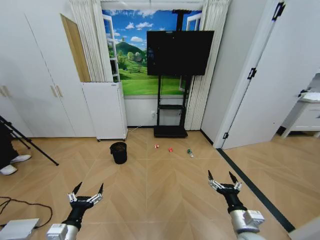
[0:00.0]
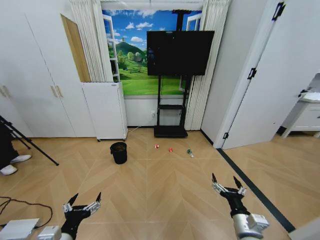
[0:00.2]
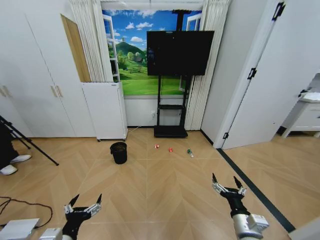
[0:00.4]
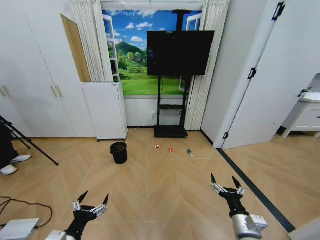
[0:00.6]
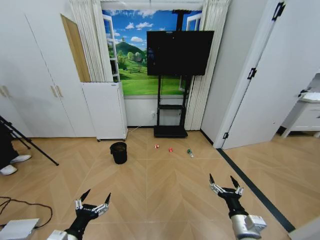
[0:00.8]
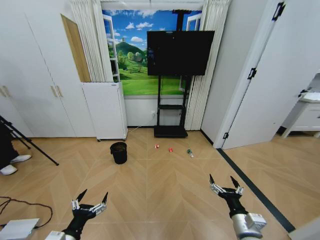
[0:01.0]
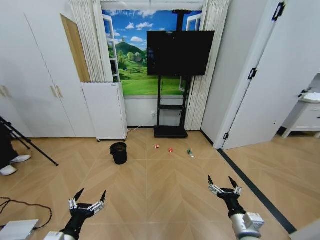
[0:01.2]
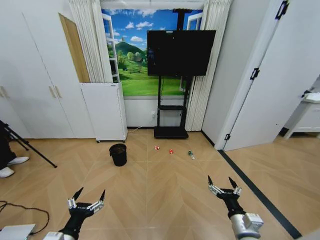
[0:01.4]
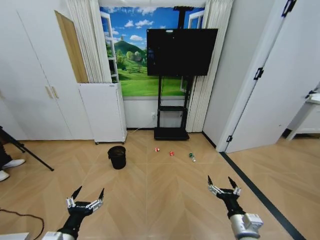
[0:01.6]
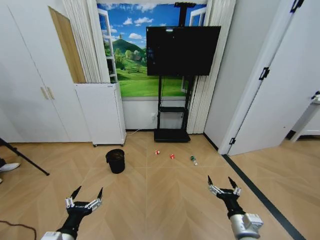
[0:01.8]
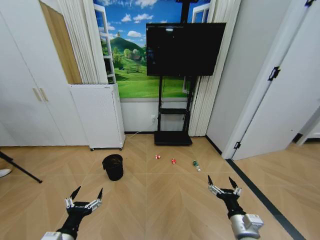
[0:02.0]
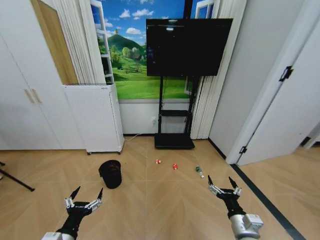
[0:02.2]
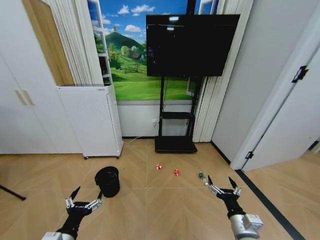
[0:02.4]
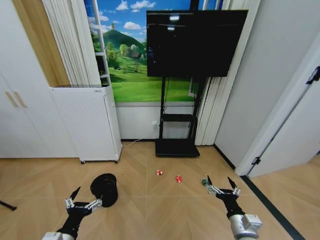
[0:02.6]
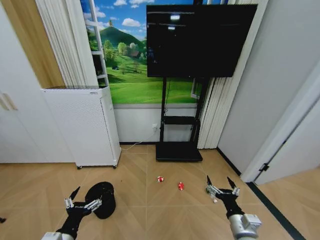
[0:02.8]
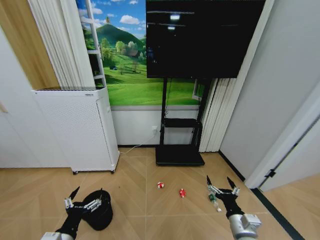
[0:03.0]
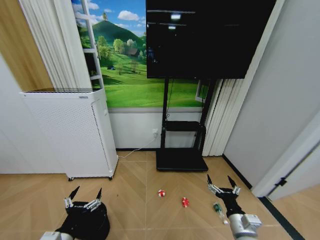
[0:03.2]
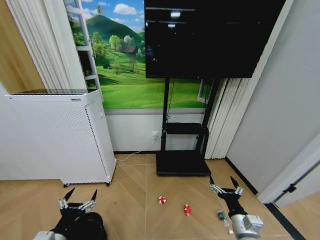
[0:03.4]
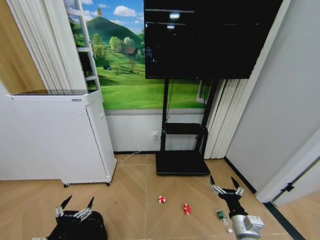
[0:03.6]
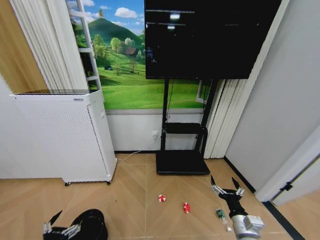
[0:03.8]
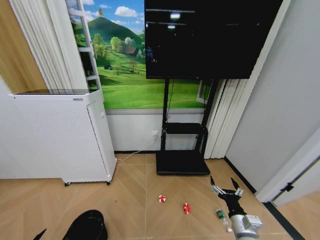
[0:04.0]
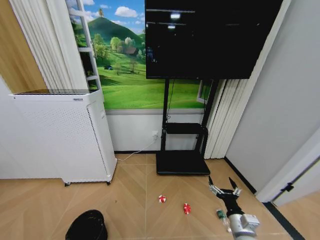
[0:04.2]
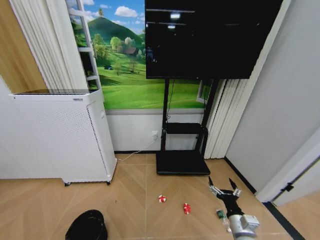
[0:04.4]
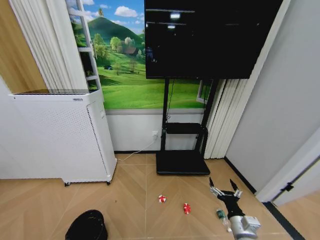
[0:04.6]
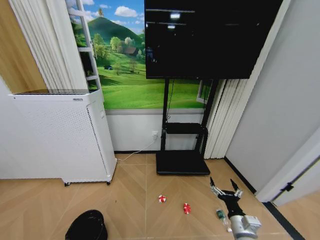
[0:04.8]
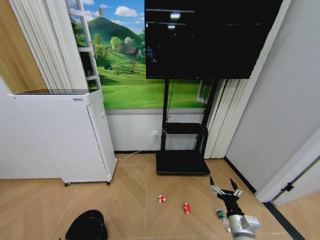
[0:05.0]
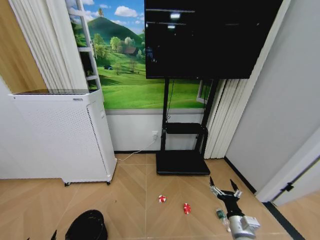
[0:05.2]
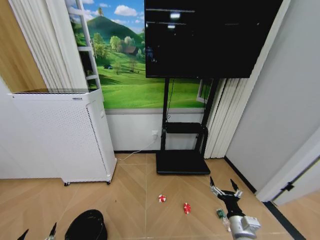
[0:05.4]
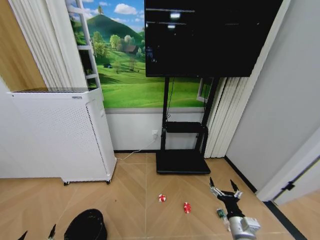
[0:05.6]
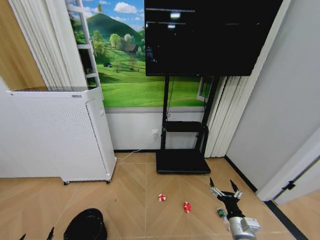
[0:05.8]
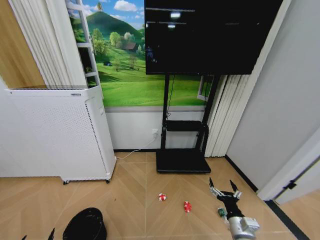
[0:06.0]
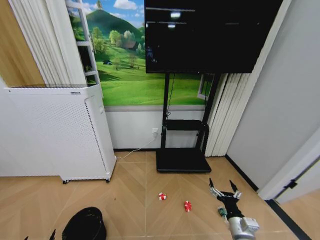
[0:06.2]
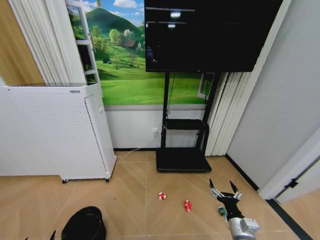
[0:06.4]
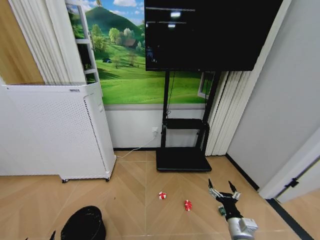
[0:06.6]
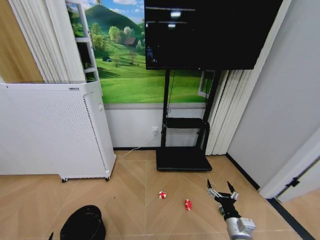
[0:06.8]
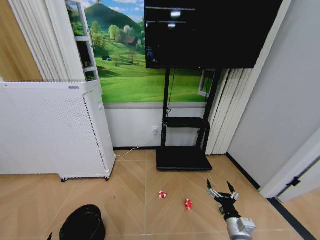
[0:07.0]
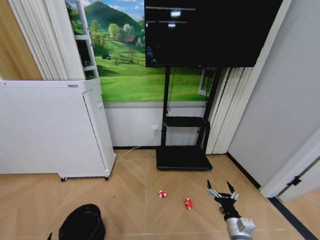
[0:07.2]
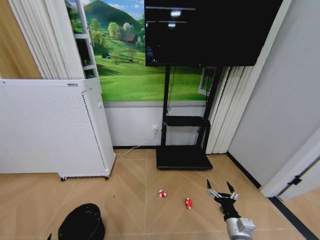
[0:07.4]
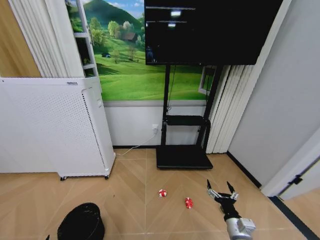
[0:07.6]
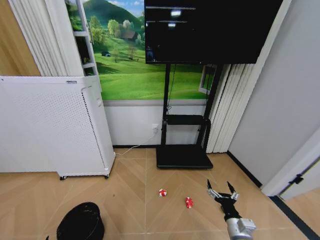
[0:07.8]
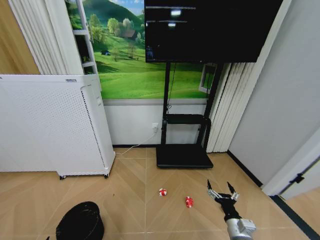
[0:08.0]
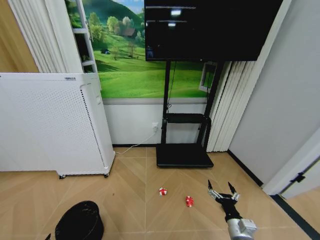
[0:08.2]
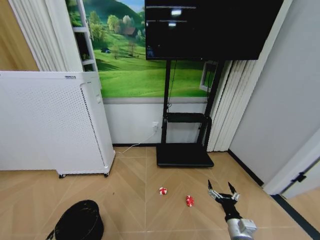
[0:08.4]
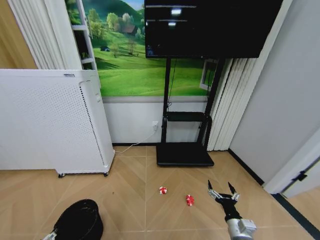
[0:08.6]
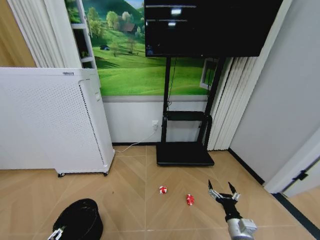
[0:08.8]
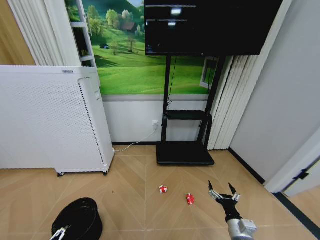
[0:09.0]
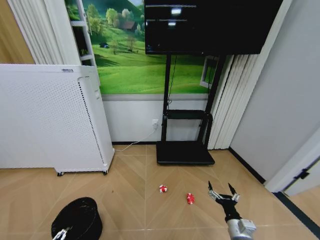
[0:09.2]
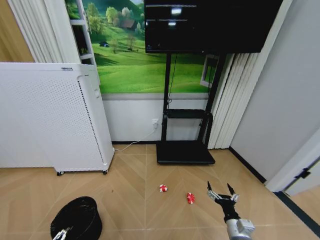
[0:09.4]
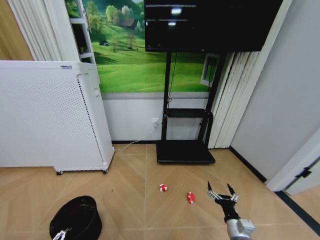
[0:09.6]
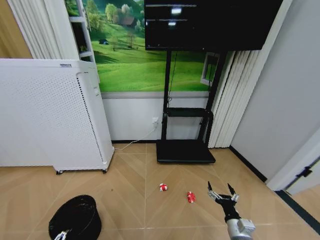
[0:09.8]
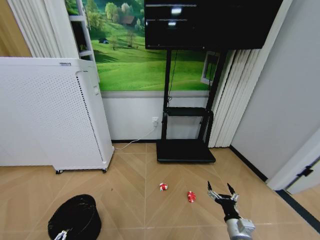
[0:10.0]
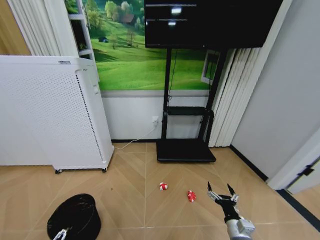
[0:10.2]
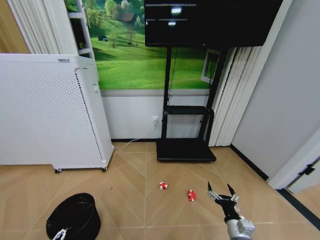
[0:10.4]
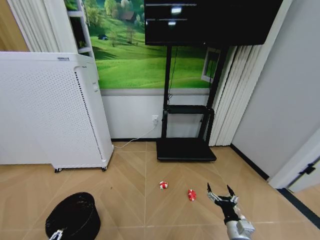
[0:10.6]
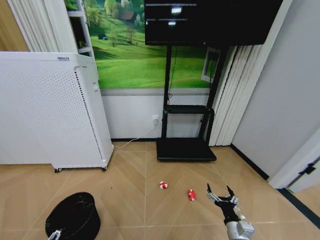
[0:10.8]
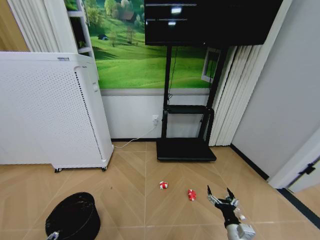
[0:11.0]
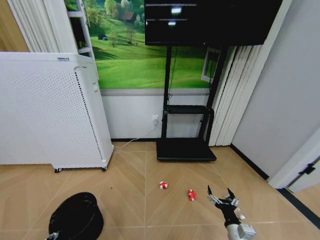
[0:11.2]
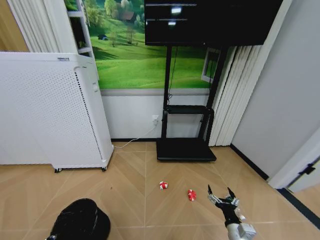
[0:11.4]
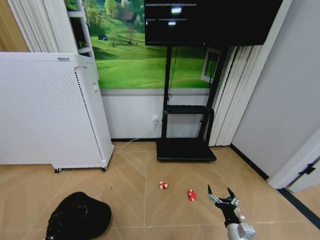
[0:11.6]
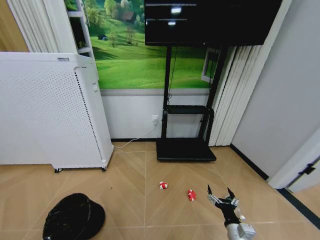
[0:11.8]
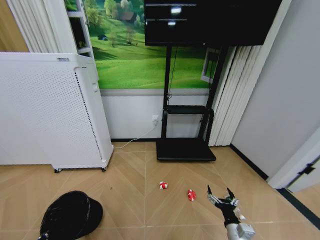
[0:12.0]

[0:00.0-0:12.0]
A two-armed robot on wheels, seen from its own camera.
Task of the whole recording: Pick up the trash bin and place the garbage on the floor into it.
0:03.0 to 0:04.4: The left gripper moves downward, to the left and backward, some 25 cm.
0:06.0 to 0:07.6: The grippers move only a little.
0:07.6 to 0:09.0: The left gripper shifts some 10 cm upward and forward.
0:09.0 to 0:10.4: The grippers move only a little.
0:10.4 to 0:12.0: The left gripper closes.

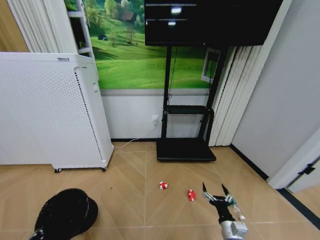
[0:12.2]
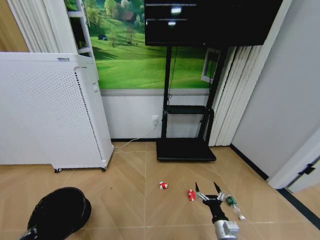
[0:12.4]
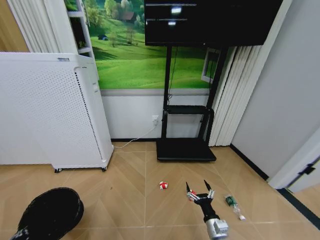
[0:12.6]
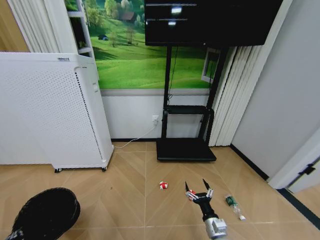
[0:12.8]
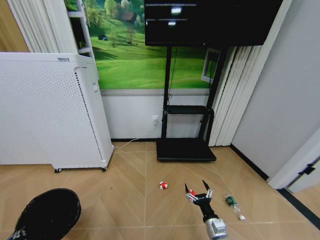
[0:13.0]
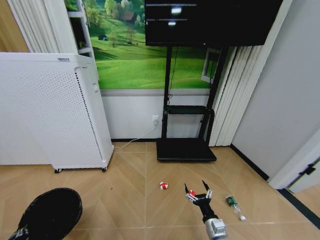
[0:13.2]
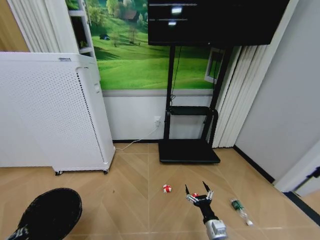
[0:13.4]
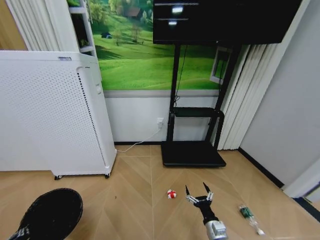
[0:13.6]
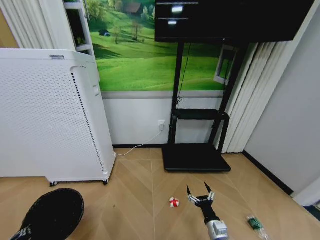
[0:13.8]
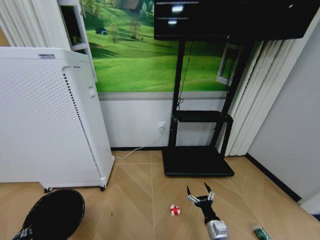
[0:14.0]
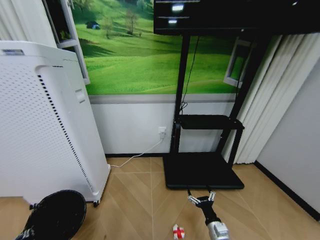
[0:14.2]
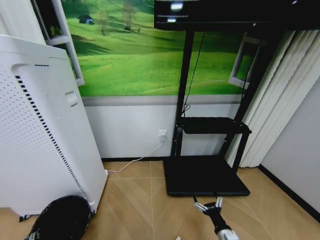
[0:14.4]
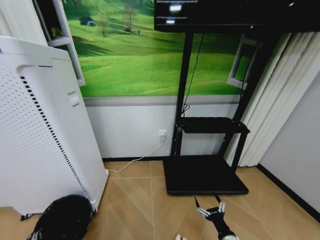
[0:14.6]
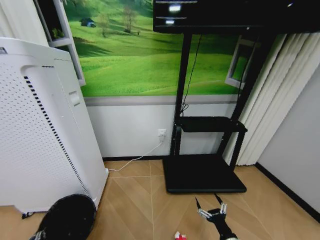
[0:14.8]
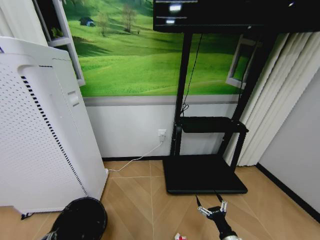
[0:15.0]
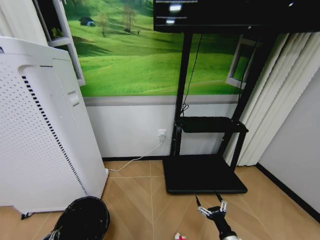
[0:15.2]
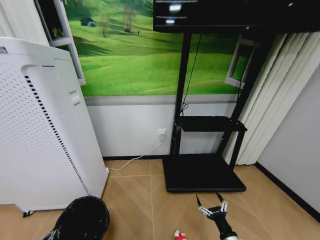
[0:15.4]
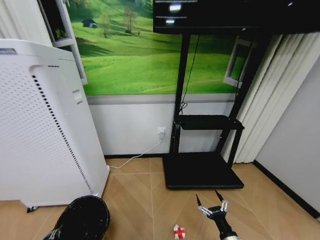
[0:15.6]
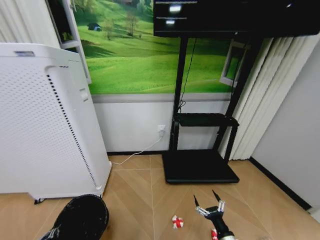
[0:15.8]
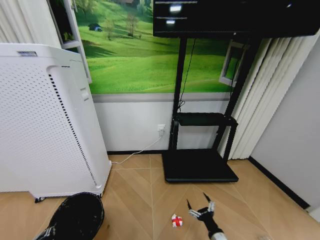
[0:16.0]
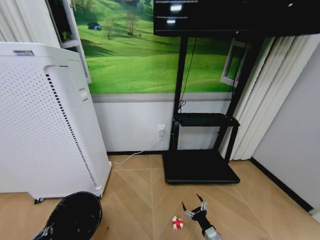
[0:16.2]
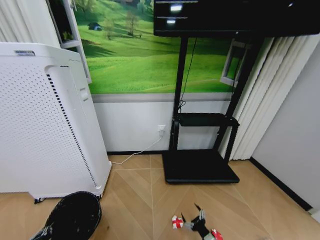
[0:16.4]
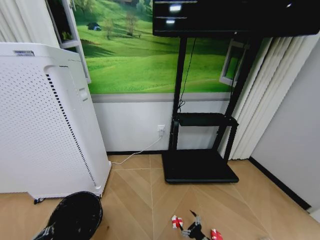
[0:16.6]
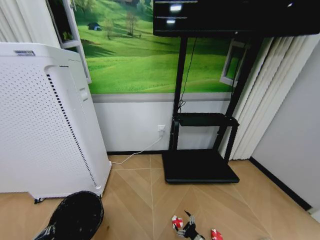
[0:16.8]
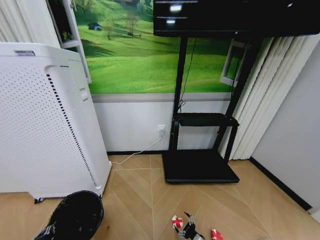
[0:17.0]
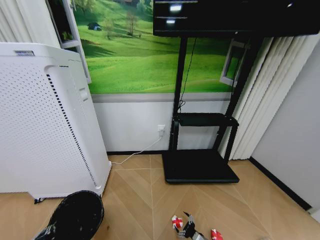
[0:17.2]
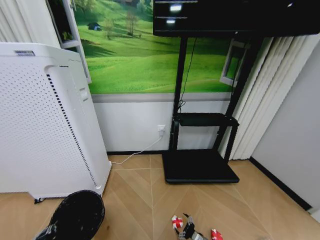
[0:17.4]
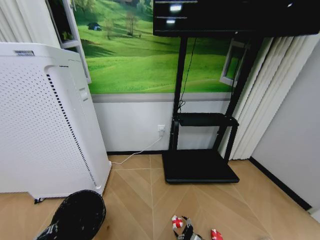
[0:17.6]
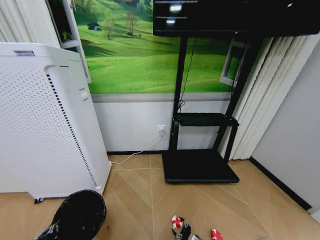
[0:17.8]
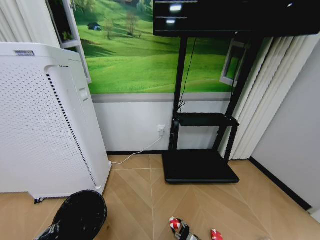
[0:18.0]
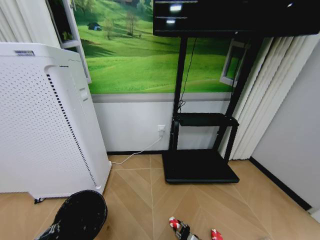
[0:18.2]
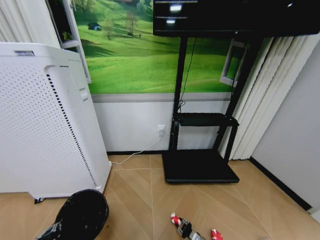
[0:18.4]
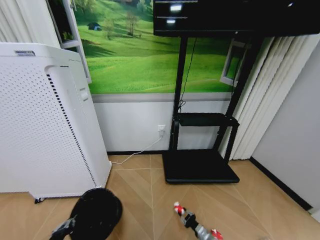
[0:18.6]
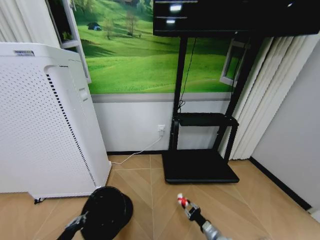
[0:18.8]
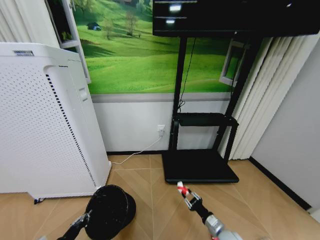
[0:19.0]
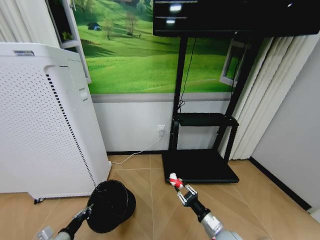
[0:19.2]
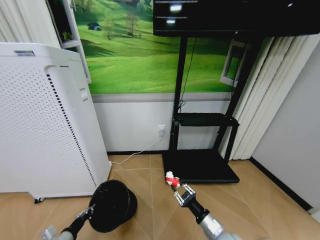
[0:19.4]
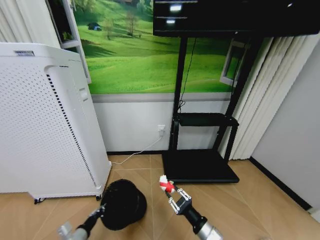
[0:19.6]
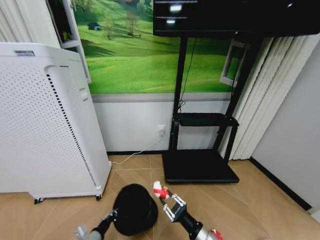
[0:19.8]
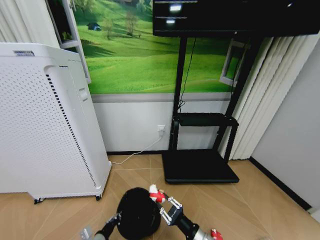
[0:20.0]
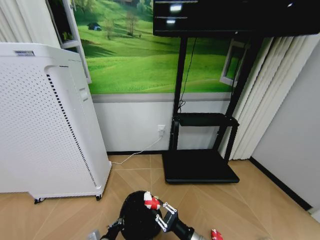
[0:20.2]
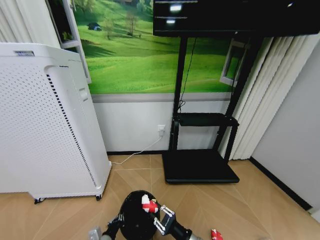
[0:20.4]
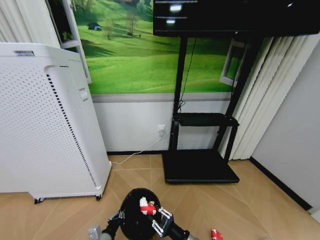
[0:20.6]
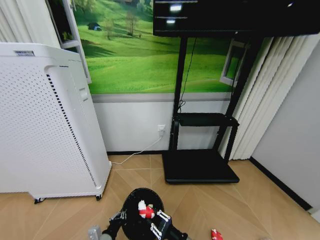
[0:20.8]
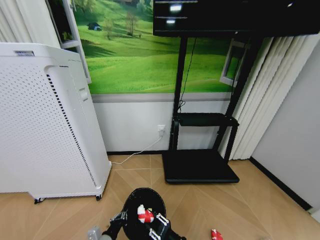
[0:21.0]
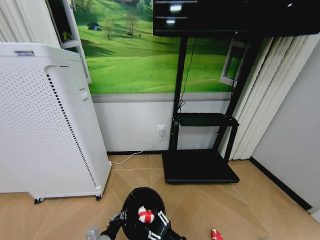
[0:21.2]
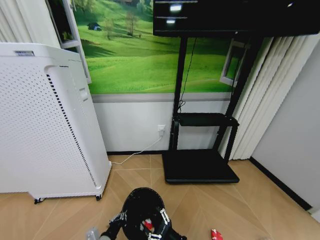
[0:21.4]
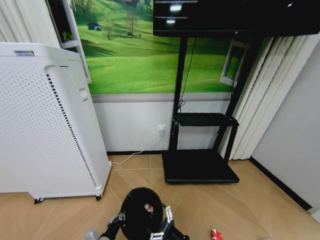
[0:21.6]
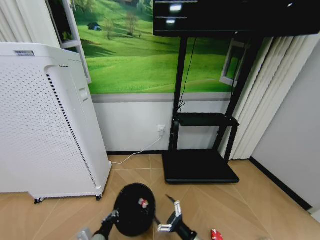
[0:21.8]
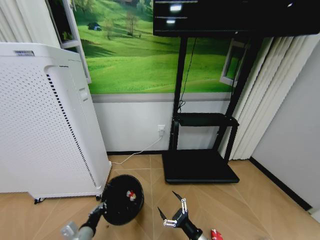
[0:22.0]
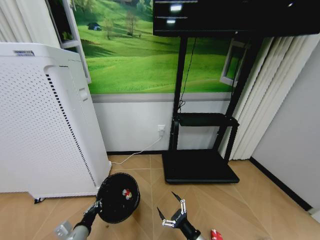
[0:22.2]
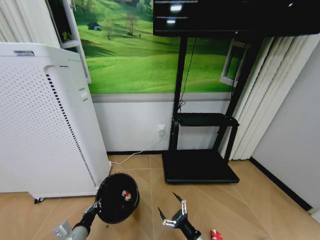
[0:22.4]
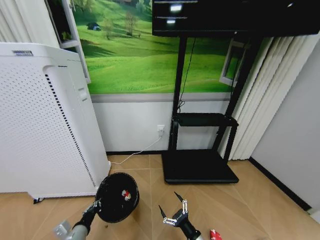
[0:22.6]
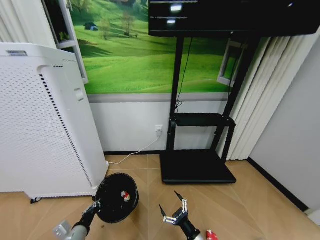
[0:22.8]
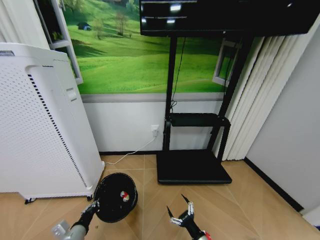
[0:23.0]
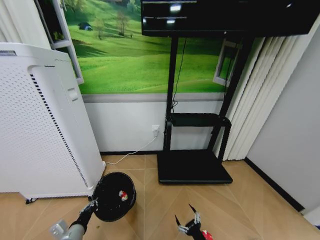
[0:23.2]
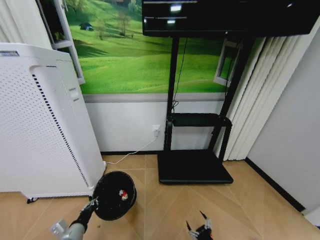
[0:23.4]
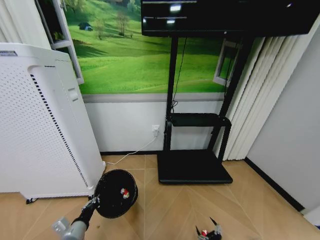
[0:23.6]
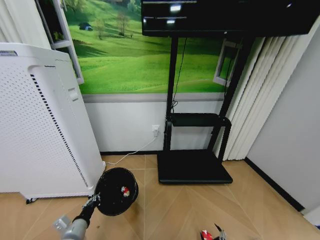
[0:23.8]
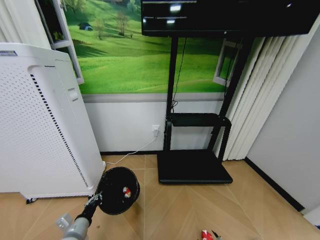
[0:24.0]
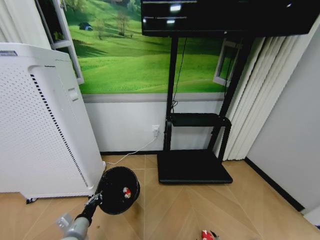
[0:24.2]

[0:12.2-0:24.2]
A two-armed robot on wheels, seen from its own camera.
Task of the whole recording: Pick up the trash bin and place the garbage on the floor into it.
0:13.8 to 0:15.2: The right gripper goes some 5 cm backward.
0:15.2 to 0:16.6: The right gripper travels downward by some 10 cm.
0:16.6 to 0:18.2: The right gripper heads downward, covering about 10 cm, and closes.
0:18.2 to 0:19.8: The right gripper travels upward by about 25 cm, while the left gripper shifts about 20 cm to the right, forward and downward.
0:19.8 to 0:21.2: The right gripper is displaced downward by about 5 cm, and opens its fingers; the left gripper goes about 5 cm to the right.
0:21.2 to 0:22.6: The left gripper heads to the left, covering about 10 cm; the right gripper opens its fingers.
0:22.6 to 0:24.2: The right gripper shifts roughly 15 cm downward and to the right.
